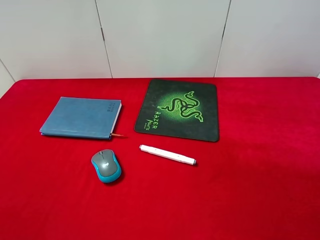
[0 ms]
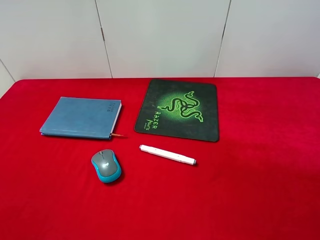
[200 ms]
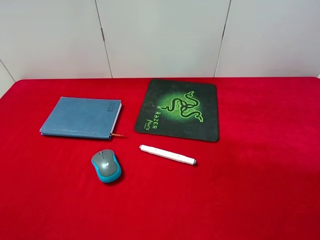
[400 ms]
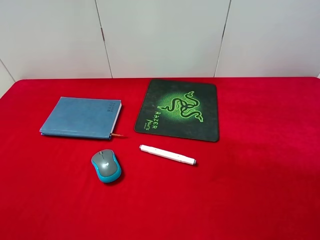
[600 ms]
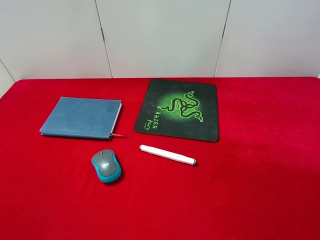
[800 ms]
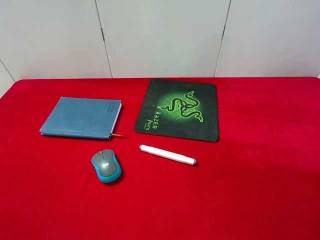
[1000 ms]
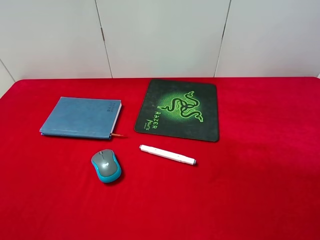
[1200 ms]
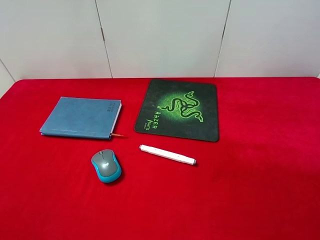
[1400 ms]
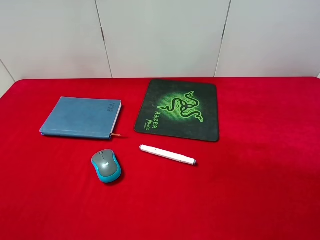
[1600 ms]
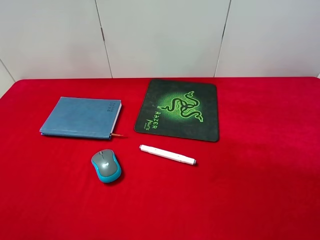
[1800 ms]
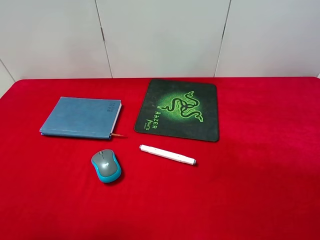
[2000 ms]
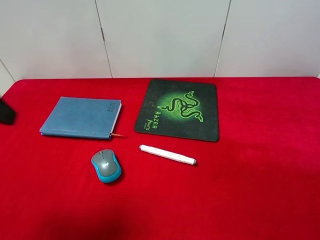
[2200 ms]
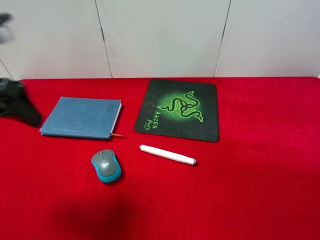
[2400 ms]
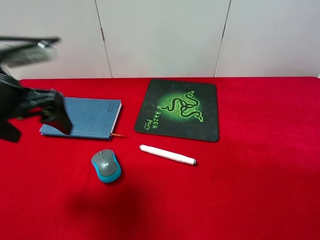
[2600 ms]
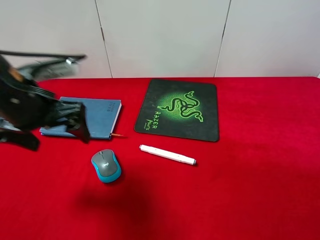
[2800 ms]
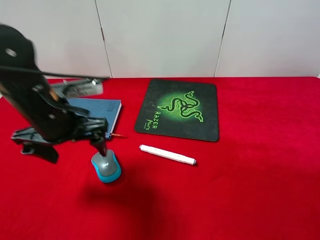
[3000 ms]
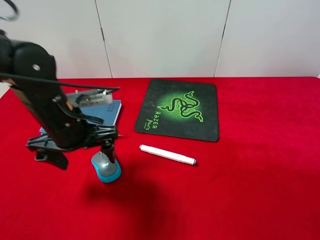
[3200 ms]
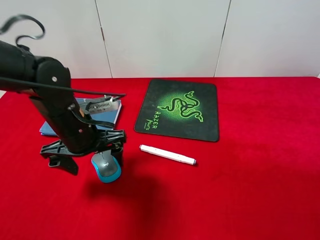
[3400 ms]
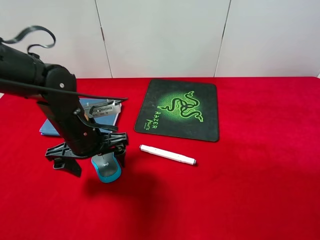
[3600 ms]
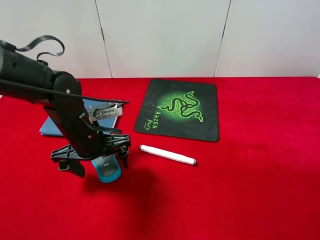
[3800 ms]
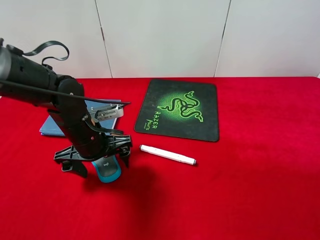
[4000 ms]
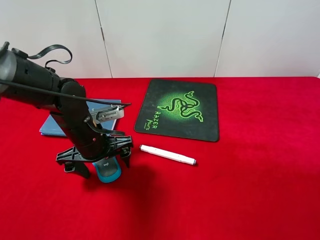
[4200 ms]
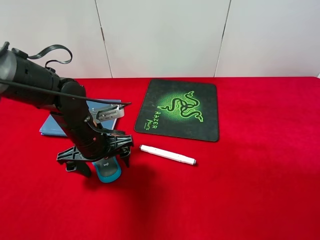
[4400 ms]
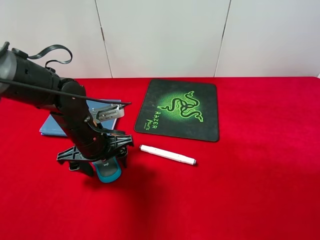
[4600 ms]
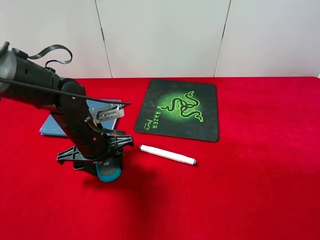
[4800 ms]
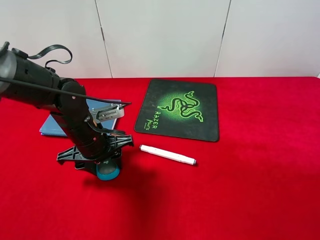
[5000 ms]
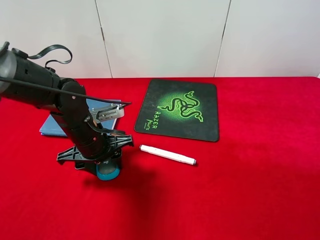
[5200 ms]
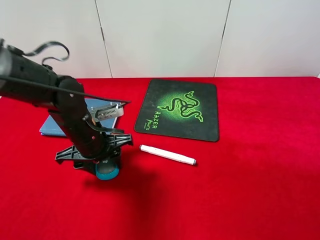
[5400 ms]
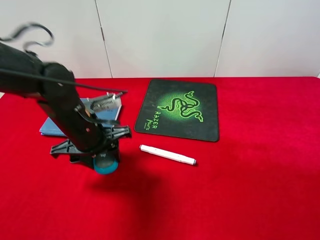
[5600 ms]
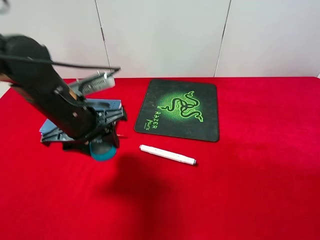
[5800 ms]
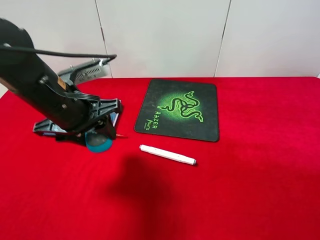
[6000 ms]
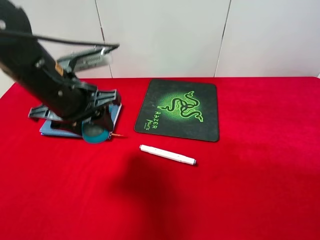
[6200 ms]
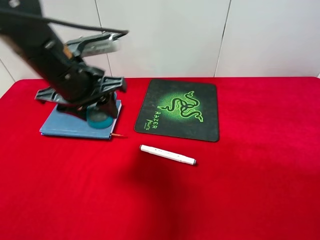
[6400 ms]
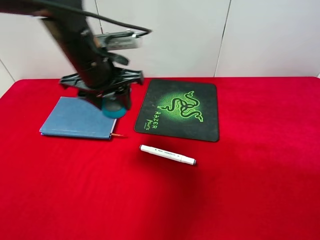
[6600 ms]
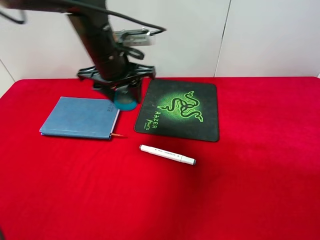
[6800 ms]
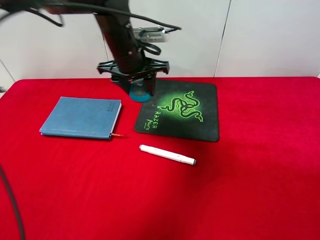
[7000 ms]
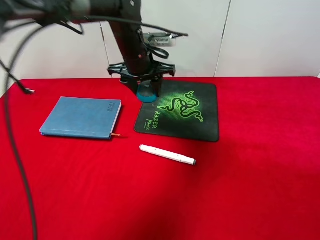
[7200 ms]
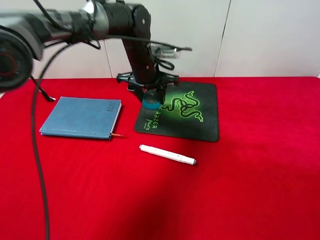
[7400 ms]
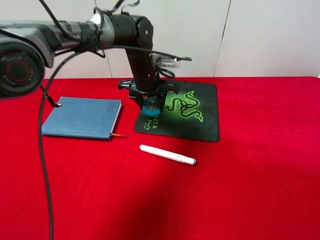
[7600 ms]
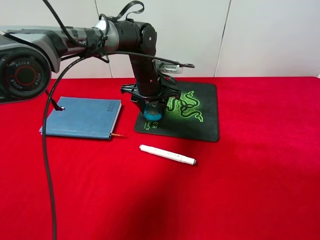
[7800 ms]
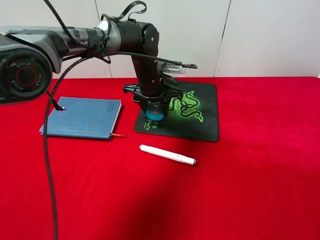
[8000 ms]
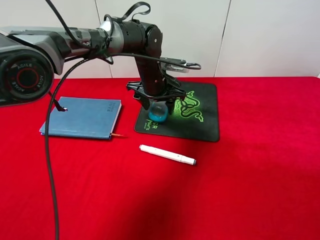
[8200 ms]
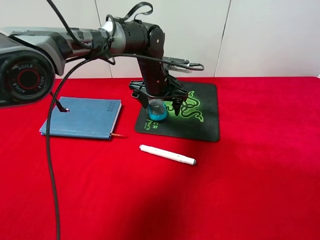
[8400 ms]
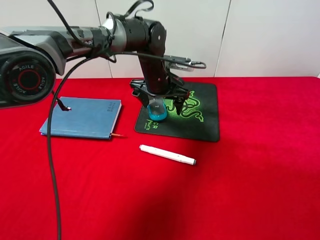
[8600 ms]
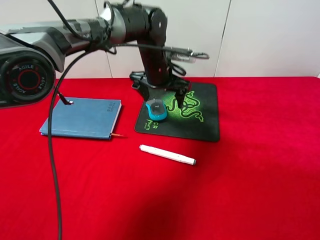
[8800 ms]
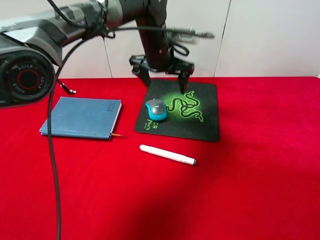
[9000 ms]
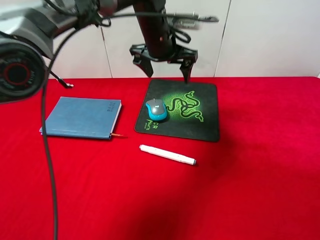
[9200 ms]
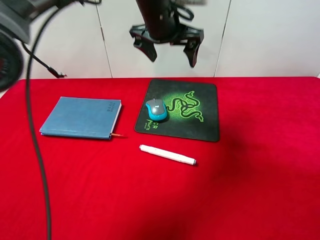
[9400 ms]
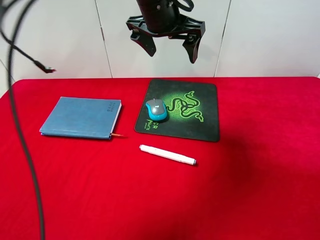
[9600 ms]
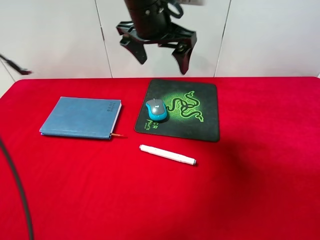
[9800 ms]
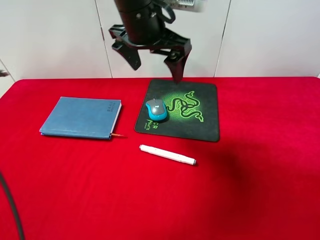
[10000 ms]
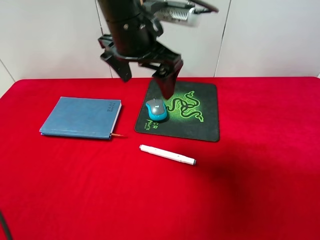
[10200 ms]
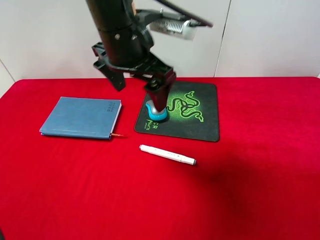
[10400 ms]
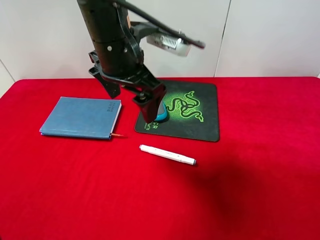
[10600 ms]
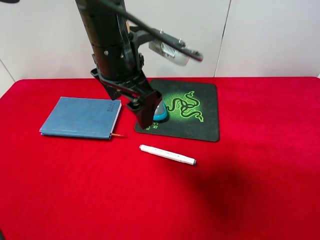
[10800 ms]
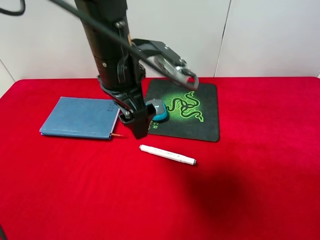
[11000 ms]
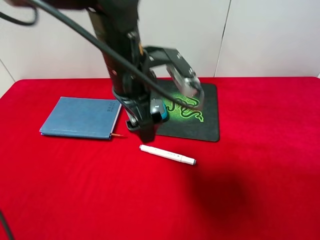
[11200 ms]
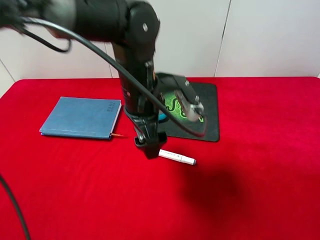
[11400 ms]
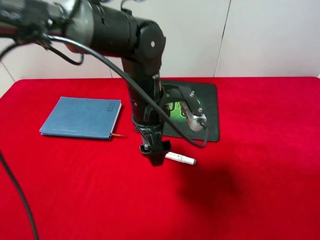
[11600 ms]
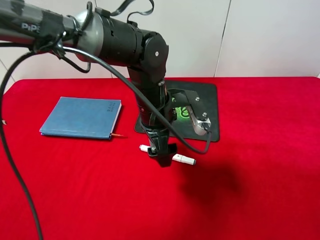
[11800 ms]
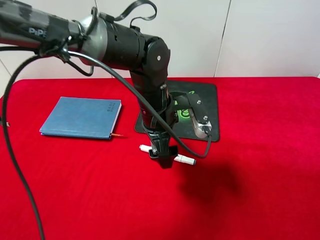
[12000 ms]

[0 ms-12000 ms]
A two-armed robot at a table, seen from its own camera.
Step, 0 ms to 6000 ms: Pick up the mouse with left gripper.
Step, 6200 ms to 8600 ms: Place the mouse on the mouse pad with left gripper.
1600 ms to 3000 ms: The left gripper goes some 30 cm forward, downward and to the right.
3000 ms to 4400 ms: The left gripper is displaced downward by roughly 10 cm.
4400 ms to 6000 ms: The left gripper travels upward by approximately 10 cm, and closes its fingers.
6000 ms to 7600 ms: The left gripper travels forward and to the right by roughly 25 cm.
7600 ms to 9000 ms: The left gripper travels upward by approximately 10 cm, and opens.
9000 ms to 10400 ms: The left gripper heads backward and upward, covering approximately 15 cm.
10400 ms to 12000 ms: The left gripper goes approximately 15 cm downward.

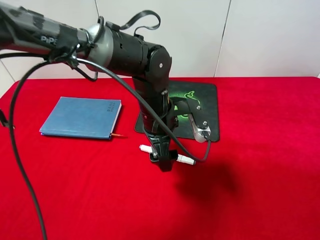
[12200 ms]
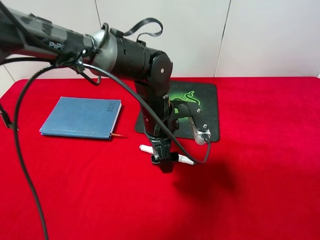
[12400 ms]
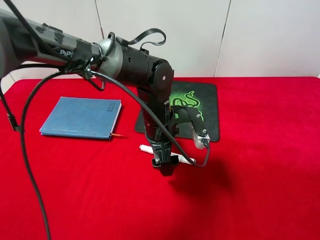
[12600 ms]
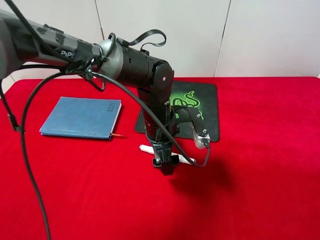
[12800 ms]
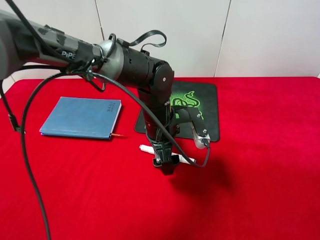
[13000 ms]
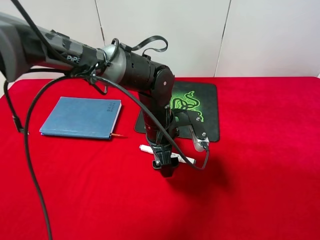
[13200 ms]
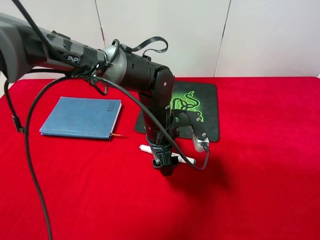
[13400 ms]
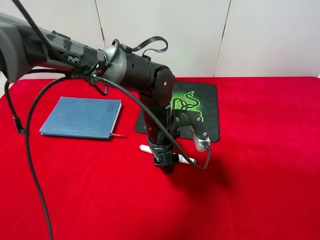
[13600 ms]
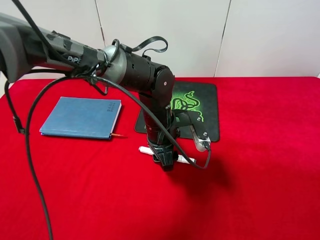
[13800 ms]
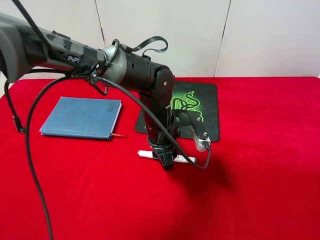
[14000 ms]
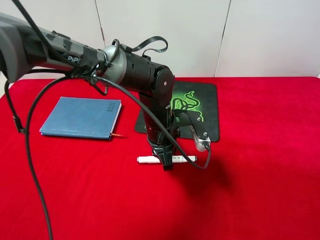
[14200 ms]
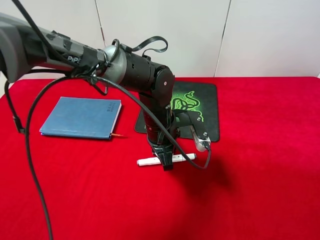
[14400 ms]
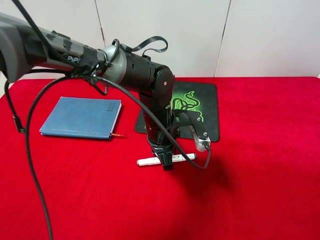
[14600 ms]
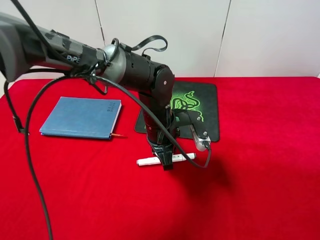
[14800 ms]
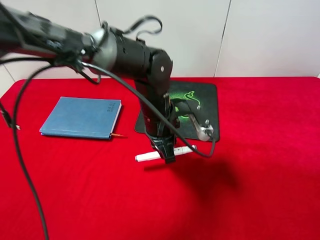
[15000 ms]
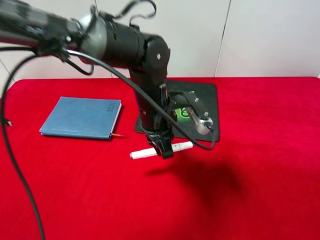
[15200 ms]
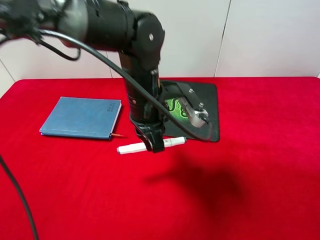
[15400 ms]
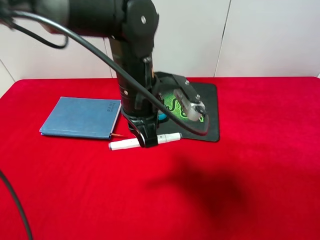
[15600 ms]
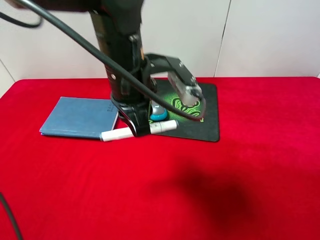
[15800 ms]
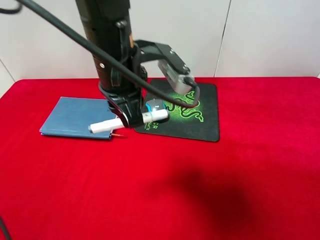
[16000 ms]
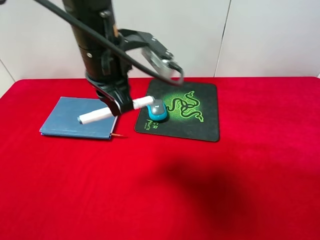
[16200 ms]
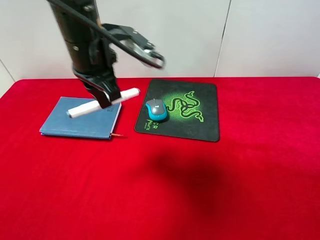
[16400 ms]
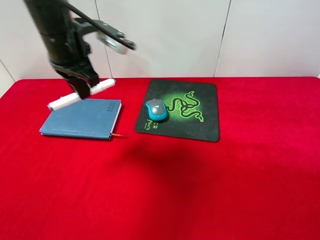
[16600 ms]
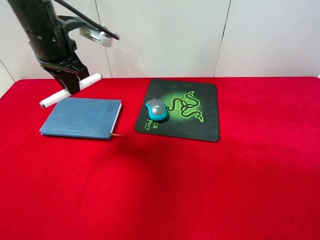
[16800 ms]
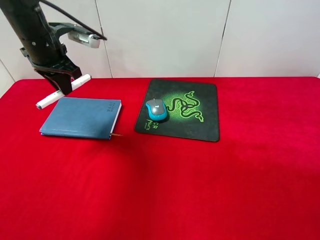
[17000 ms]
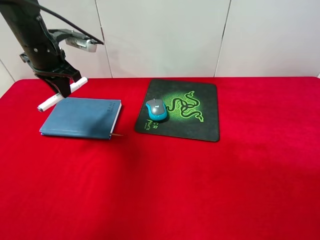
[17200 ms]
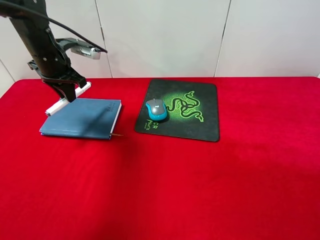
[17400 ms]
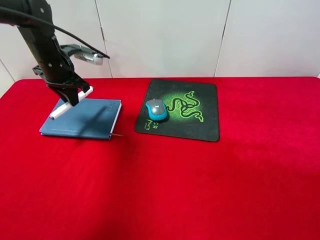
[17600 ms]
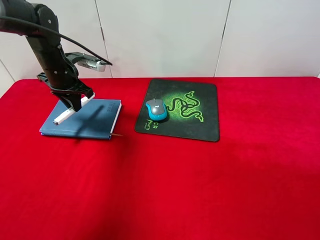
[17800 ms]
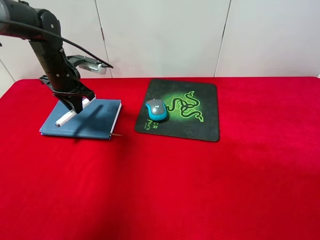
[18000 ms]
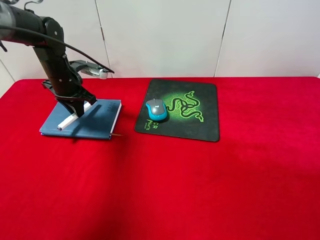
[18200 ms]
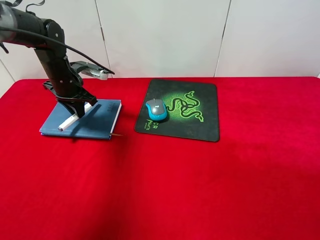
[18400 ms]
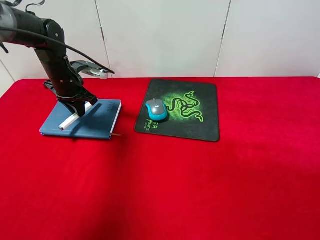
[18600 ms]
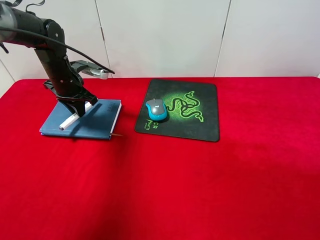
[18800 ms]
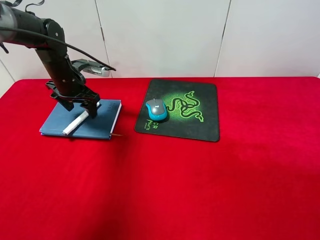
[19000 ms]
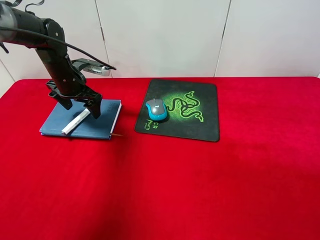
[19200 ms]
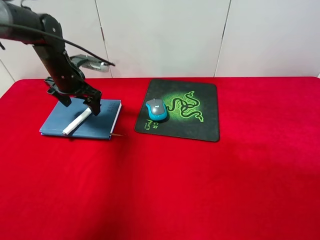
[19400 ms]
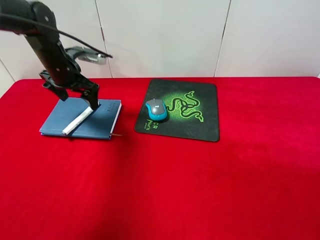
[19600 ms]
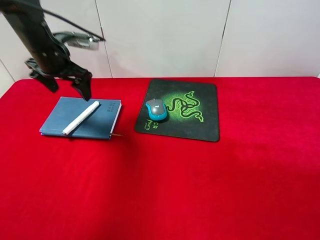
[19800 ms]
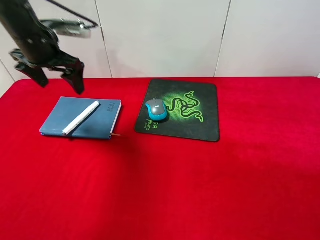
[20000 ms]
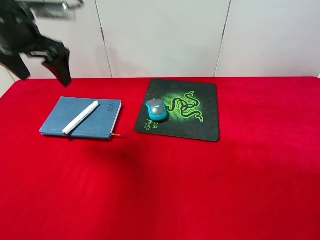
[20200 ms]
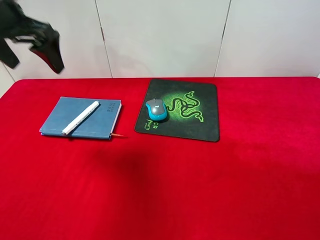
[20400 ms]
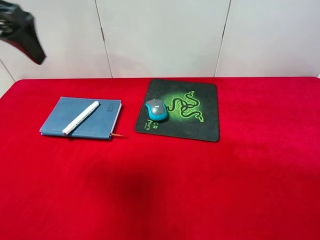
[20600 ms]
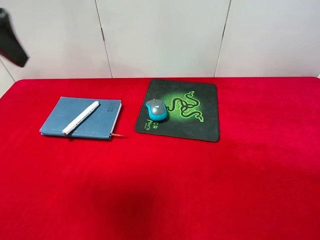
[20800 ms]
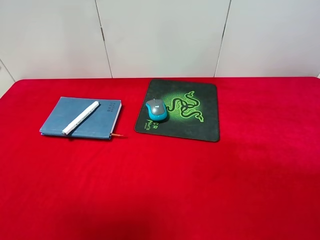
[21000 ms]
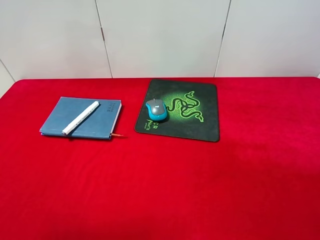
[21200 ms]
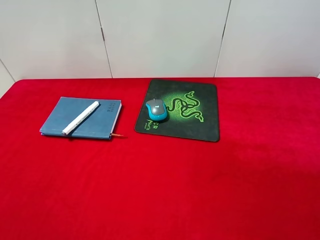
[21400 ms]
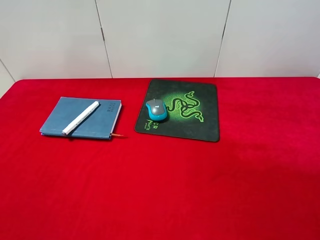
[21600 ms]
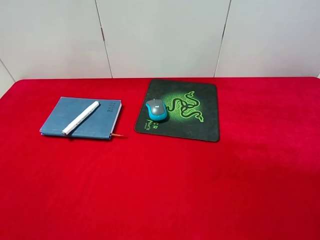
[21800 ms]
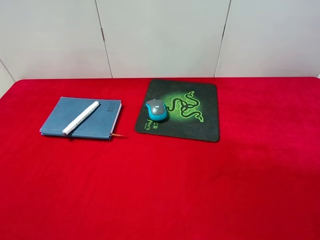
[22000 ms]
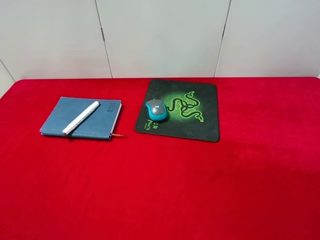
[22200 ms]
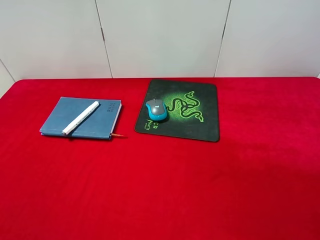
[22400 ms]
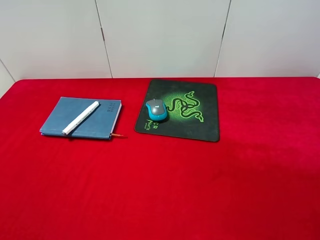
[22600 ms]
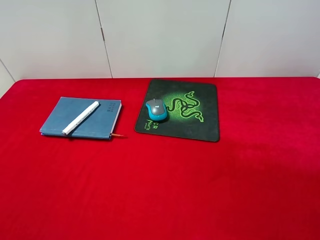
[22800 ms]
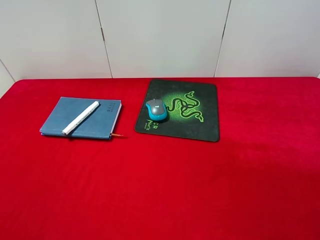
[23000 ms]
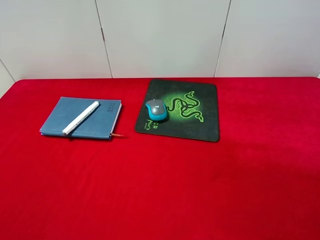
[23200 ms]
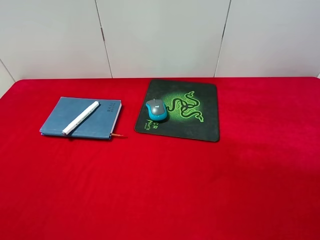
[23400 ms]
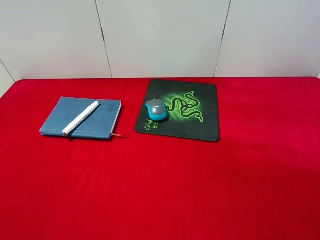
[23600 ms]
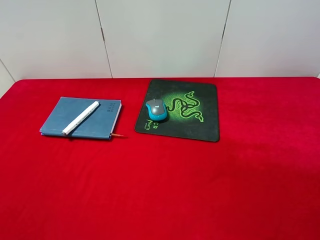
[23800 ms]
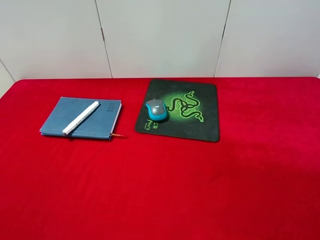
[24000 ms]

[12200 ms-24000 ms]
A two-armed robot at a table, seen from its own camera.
Step, 12200 ms to 15200 ms: Pick up the marker pen with left gripper.
Step, 15400 ms to 19400 ms: Place the marker pen on the notebook with left gripper.
12200 ms to 13600 ms: The grippers move only a little.
13600 ms to 15200 ms: The left gripper goes roughly 5 cm upward, and closes up.
15200 ms to 16600 ms: The left gripper goes some 20 cm to the left and upward.
16600 ms to 18200 ms: The left gripper travels downward, forward and to the left by some 15 cm.
18200 ms to 19600 ms: The left gripper opens.
19600 ms to 21000 ms: The left gripper moves backward and upward, roughly 30 cm.
